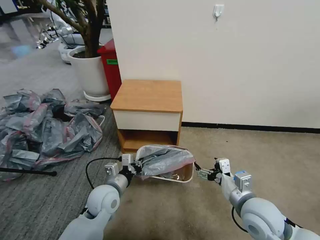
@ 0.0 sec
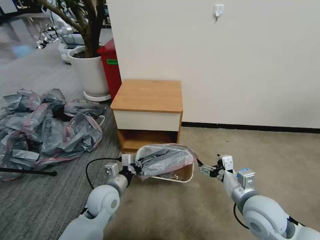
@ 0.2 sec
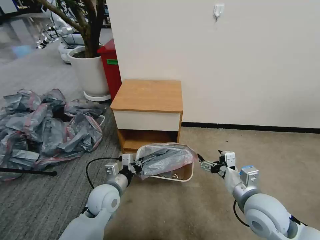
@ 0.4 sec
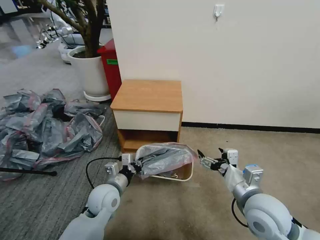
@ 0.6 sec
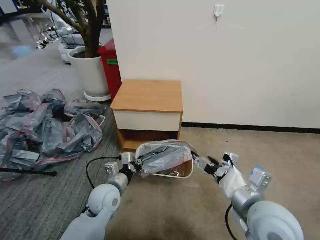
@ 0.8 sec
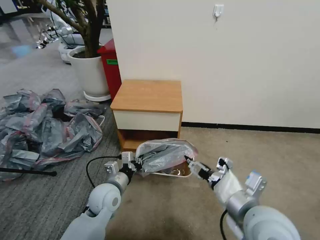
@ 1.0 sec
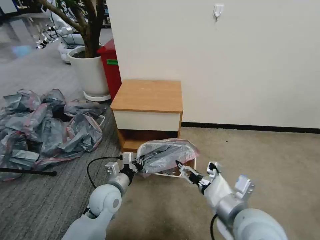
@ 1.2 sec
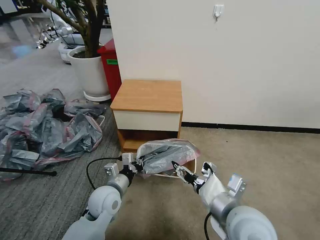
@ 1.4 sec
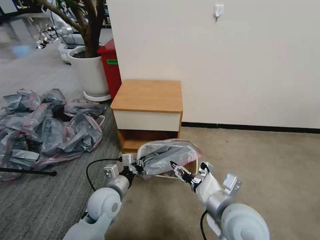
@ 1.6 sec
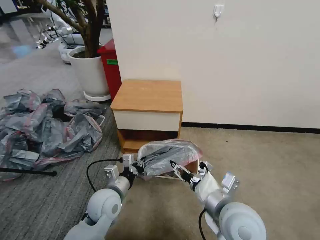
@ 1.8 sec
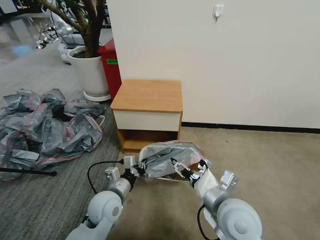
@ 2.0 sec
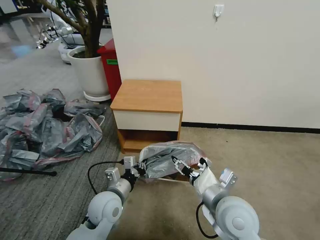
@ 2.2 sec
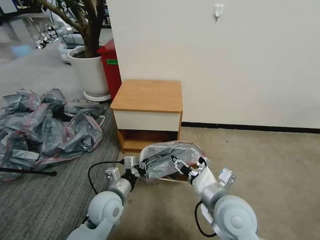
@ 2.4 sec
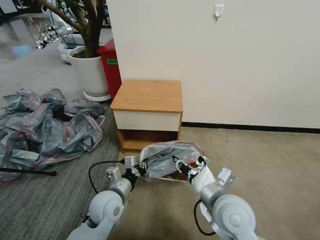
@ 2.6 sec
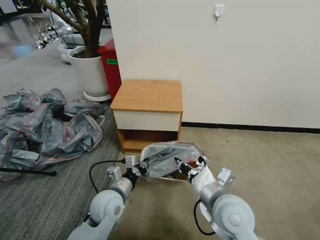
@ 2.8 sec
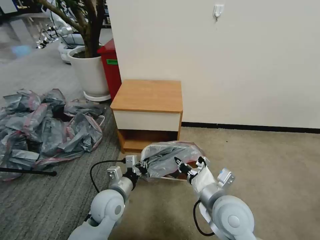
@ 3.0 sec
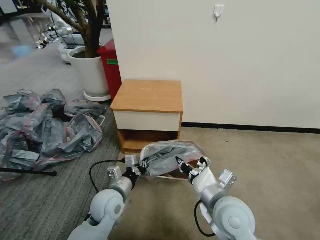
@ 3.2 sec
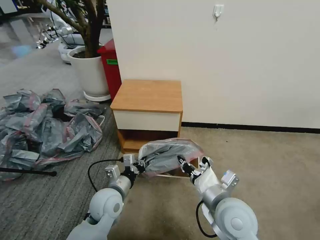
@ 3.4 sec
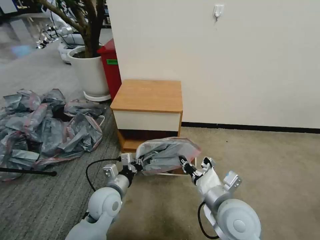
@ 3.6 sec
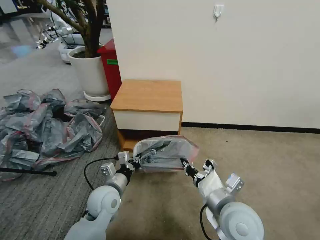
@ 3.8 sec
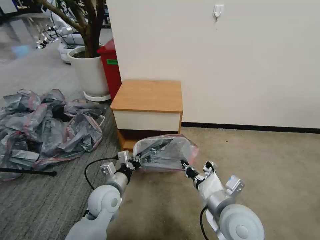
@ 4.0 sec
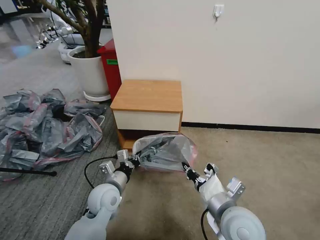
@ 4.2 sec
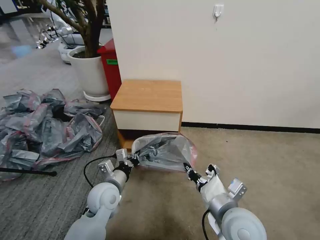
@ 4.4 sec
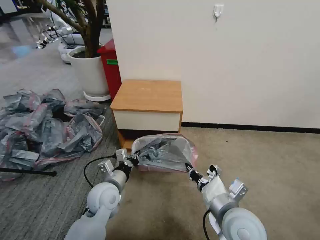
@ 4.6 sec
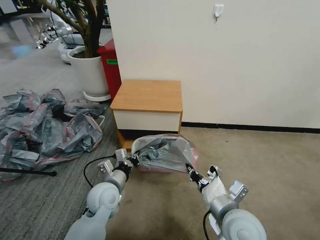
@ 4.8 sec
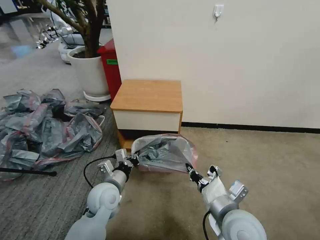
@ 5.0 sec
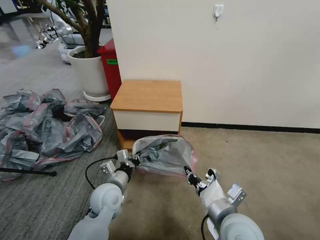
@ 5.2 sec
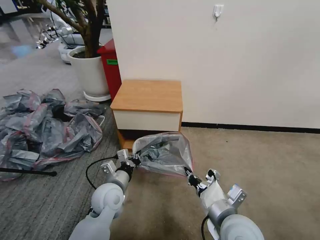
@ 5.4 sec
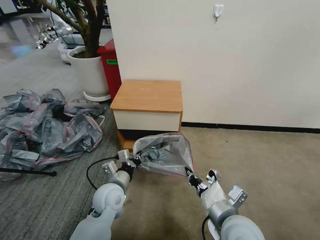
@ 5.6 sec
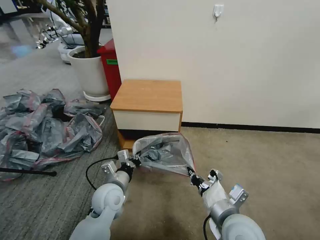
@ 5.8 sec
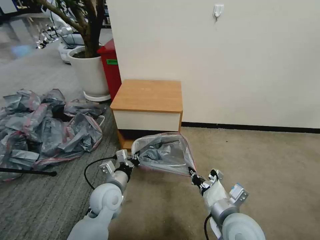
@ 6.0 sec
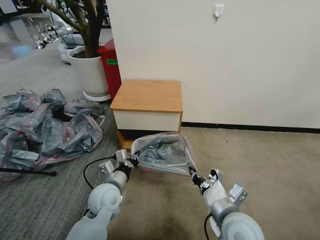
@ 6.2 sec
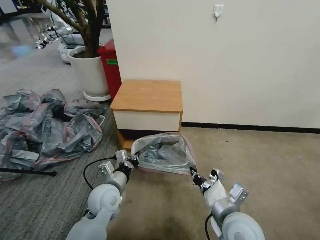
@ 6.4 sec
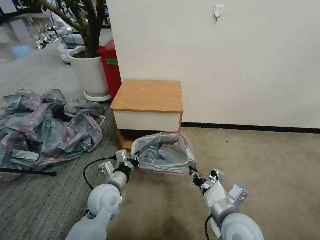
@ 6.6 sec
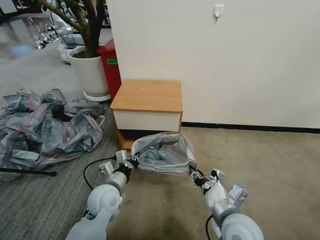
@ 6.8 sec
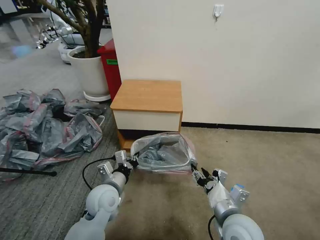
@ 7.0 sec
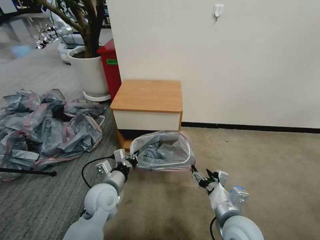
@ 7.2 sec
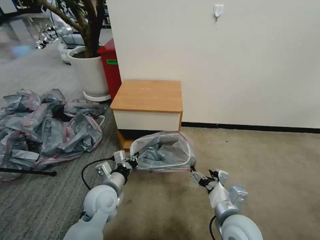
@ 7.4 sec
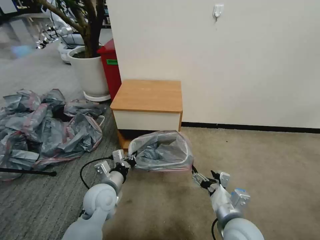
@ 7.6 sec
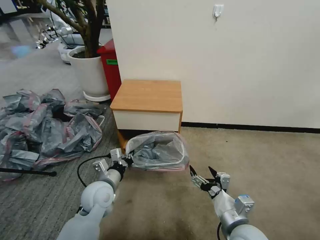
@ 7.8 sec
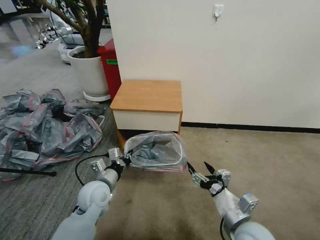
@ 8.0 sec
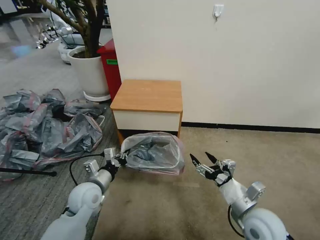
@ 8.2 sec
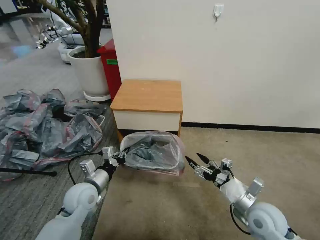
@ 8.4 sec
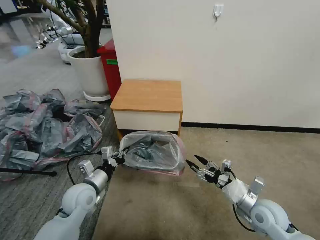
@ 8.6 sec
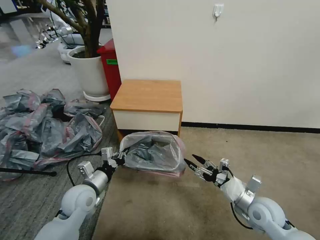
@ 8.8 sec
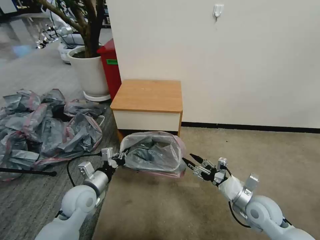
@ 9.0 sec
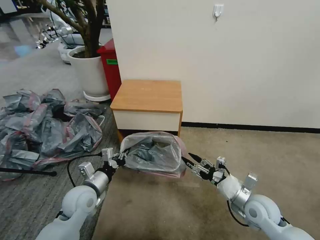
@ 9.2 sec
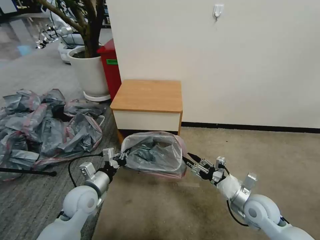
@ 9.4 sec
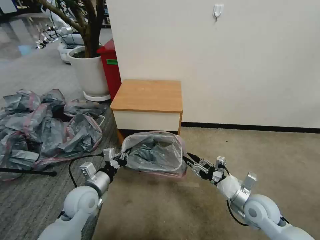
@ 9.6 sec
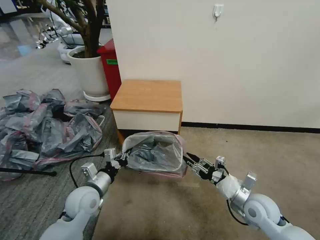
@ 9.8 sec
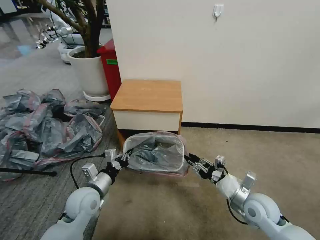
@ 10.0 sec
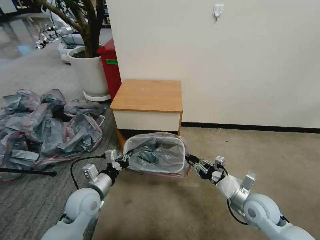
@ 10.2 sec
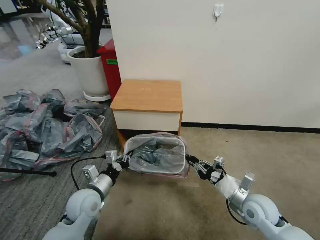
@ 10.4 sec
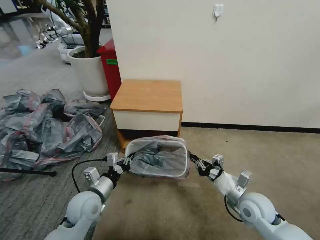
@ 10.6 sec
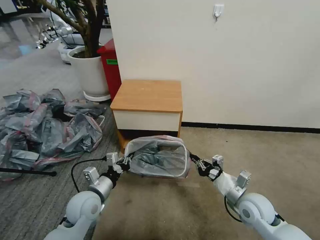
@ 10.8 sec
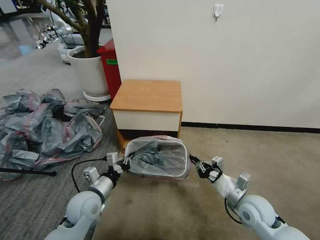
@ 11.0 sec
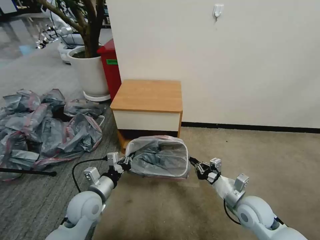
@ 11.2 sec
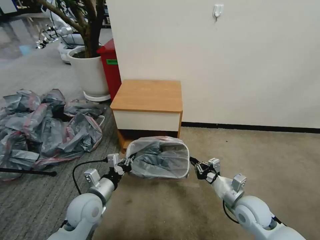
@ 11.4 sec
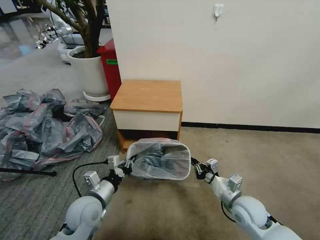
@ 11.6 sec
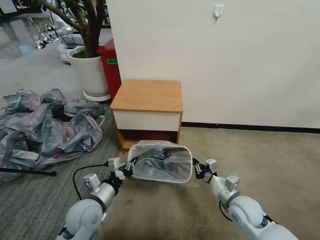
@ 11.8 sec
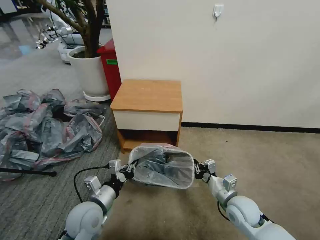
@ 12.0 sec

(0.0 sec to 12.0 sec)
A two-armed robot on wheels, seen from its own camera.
Task of the whole recording: Pick up the garbage bag from the table and place it over the trash can.
0.0 sec - 1.6 sec: The right gripper travels to the left and upward by about 10 cm.
1.6 sec - 3.0 sec: The right gripper closes its fingers.
3.0 sec - 6.0 sec: The grippers move only a little.
6.0 sec - 7.6 sec: The right gripper opens its fingers.
7.6 sec - 9.0 sec: The left gripper goes some 5 cm to the left, while the right gripper travels to the right and forward by approximately 15 cm.
9.0 sec - 10.4 sec: The right gripper closes up.
10.4 sec - 12.0 sec: The right gripper ends up approximately 5 cm from where it was.

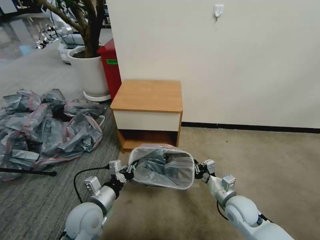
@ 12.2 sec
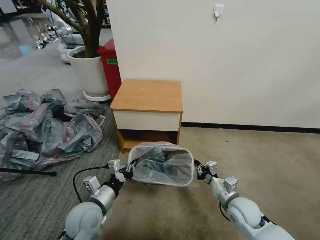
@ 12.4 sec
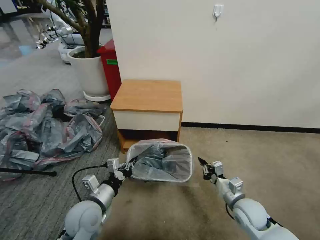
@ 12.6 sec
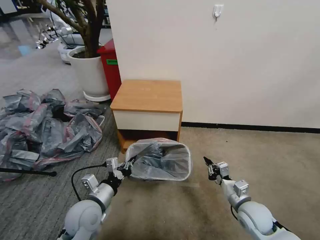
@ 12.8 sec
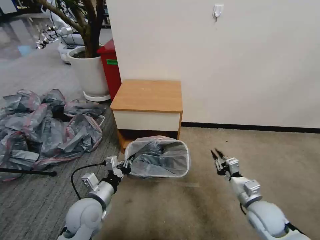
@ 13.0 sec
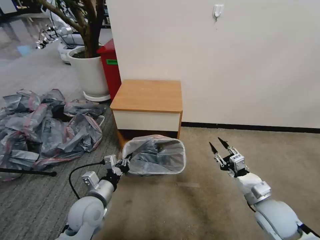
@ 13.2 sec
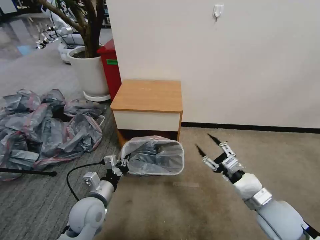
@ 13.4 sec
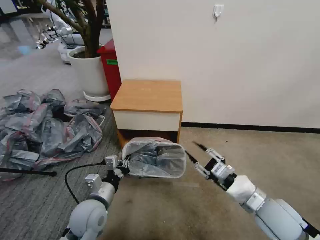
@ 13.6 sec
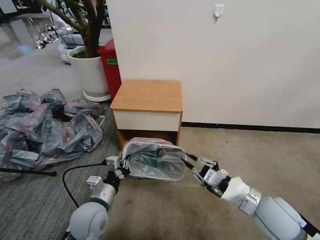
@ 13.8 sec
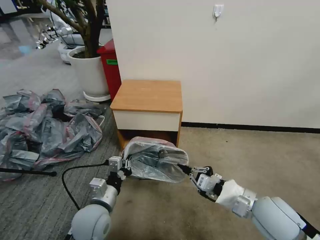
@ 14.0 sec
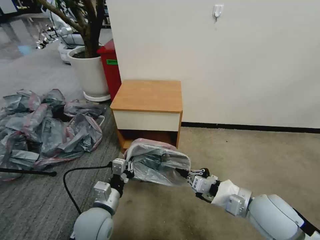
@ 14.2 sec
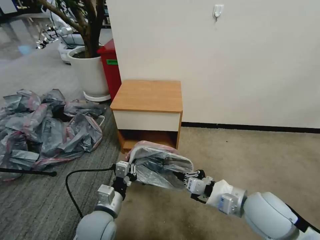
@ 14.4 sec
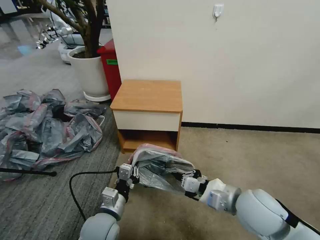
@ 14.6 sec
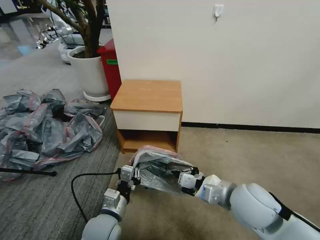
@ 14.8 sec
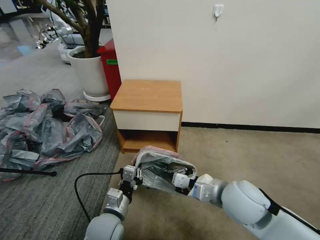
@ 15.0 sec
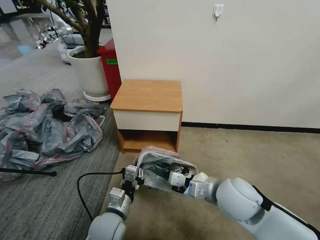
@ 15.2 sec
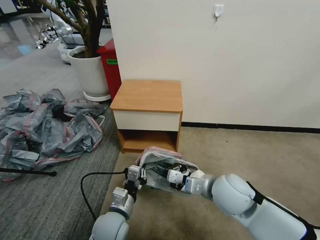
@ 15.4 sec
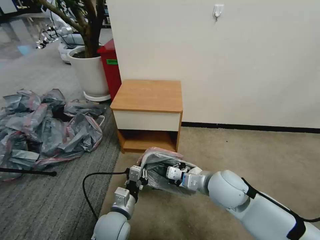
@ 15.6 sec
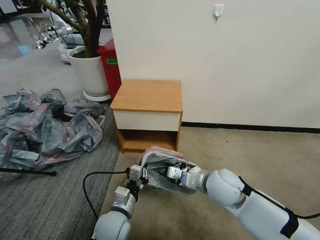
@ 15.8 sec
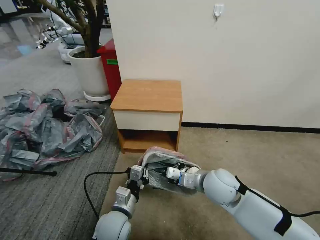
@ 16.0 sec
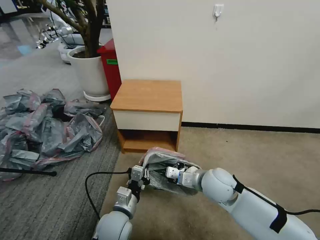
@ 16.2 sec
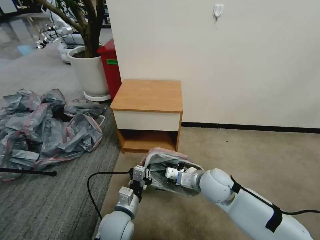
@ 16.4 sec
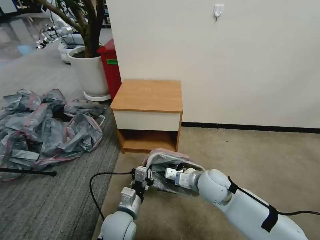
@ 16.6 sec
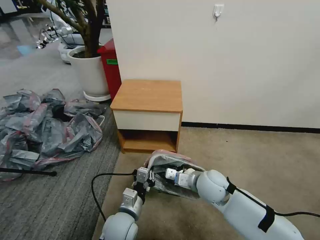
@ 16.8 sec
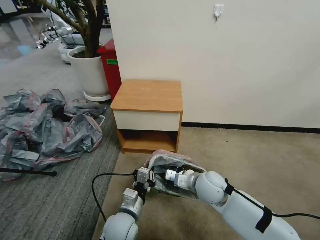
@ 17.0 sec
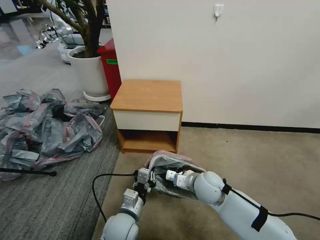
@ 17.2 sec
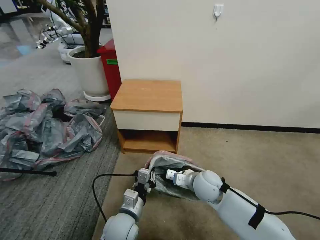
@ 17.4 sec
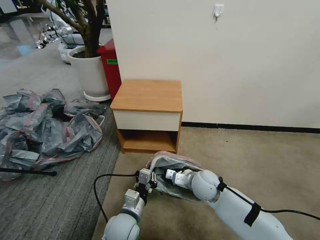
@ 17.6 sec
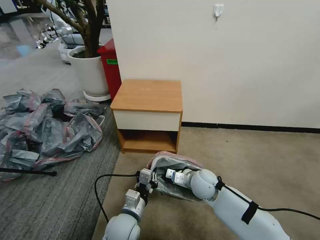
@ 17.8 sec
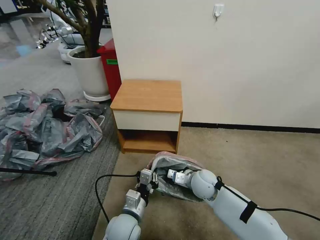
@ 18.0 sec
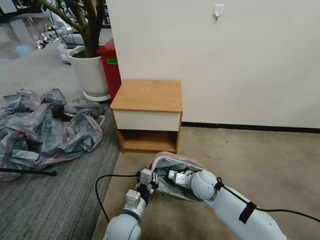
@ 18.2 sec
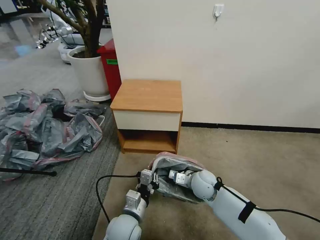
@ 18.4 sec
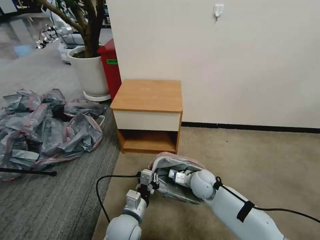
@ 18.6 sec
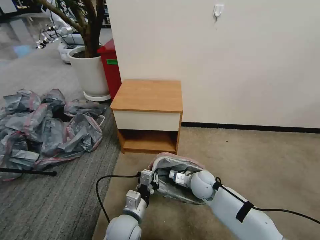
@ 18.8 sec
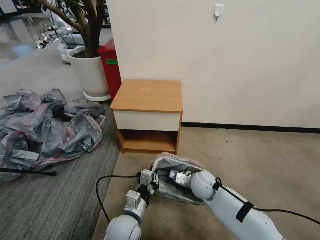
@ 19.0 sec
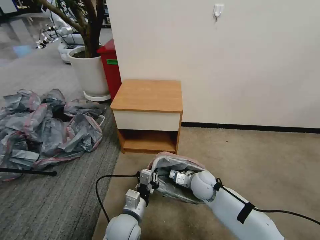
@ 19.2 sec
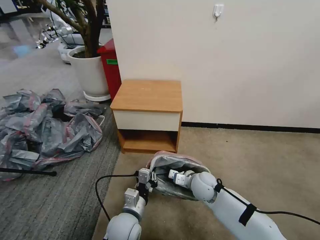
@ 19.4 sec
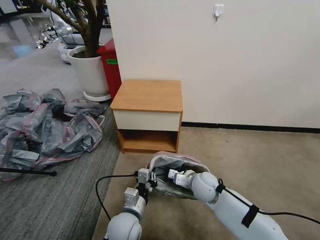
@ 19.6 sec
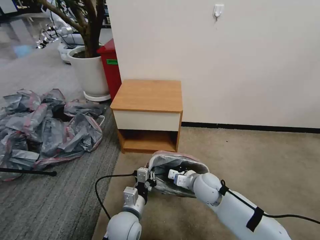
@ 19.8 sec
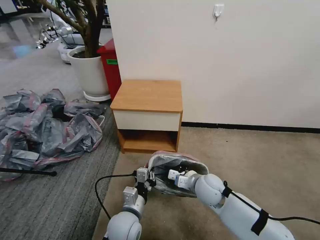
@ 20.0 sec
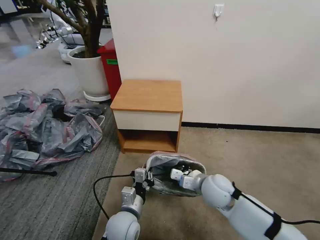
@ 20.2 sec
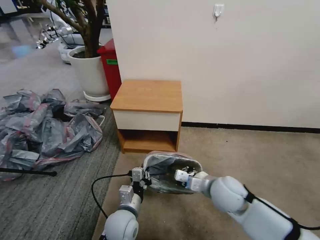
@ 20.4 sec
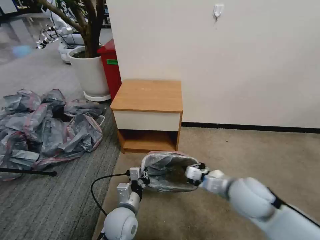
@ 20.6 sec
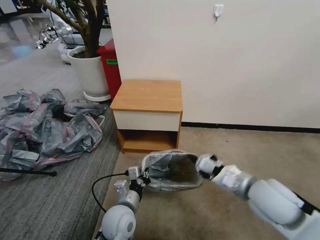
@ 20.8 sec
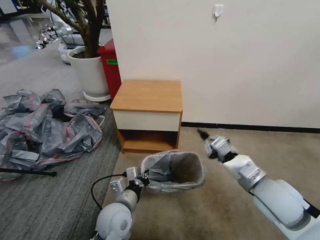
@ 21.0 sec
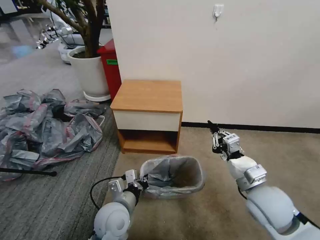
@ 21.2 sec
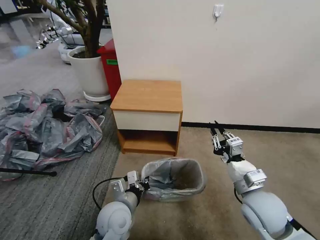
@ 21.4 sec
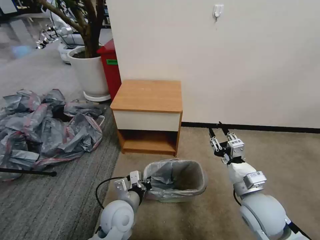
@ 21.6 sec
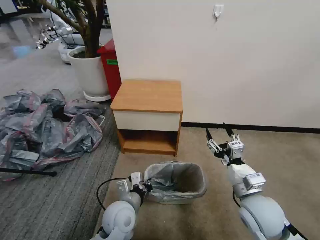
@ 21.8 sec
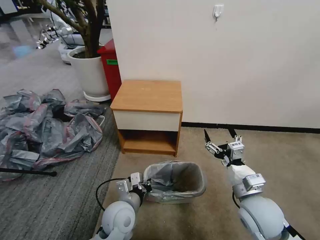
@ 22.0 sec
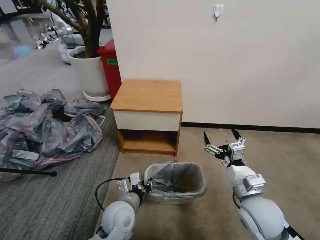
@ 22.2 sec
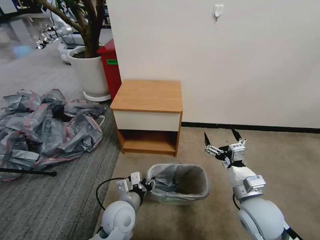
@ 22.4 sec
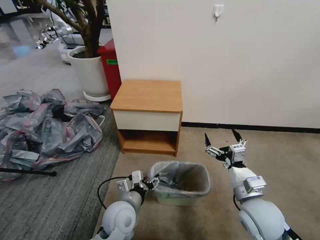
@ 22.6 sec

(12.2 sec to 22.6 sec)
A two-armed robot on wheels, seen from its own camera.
Task of the whole recording: Pick up the garbage bag from the table and place it over the trash can.
12.2 sec - 13.6 sec: The right gripper is displaced upward by roughly 10 cm, and opens.
13.6 sec - 15.2 sec: The right gripper goes roughly 10 cm to the left, and closes up; the left gripper heads to the right, covering about 5 cm.
15.2 sec - 16.6 sec: The right gripper travels downward and forward by approximately 10 cm.
16.6 sec - 18.2 sec: The right gripper goes some 10 cm downward.
18.2 sec - 19.6 sec: There are only small adjustments of the grippers.
19.6 sec - 21.2 sec: The left gripper is displaced upward by approximately 5 cm. The right gripper shifts some 20 cm upward, to the right and backward.
21.2 sec - 22.6 sec: The left gripper opens its fingers; the right gripper opens.
